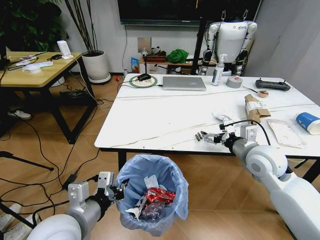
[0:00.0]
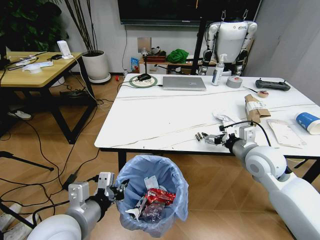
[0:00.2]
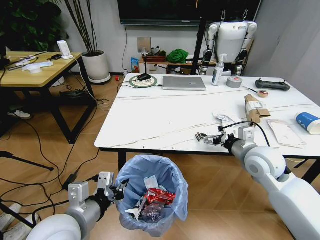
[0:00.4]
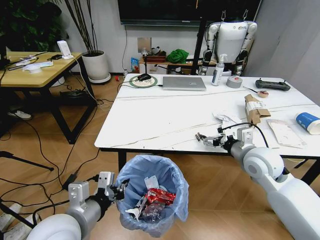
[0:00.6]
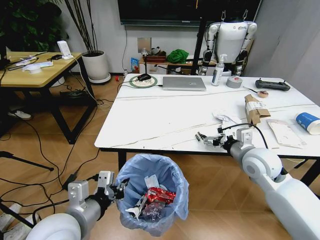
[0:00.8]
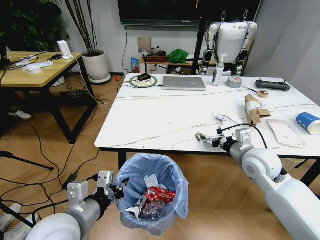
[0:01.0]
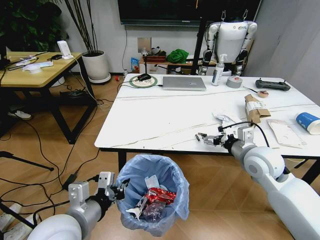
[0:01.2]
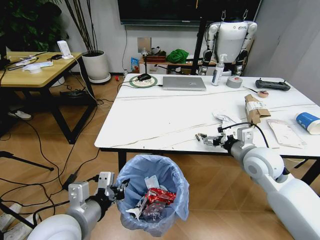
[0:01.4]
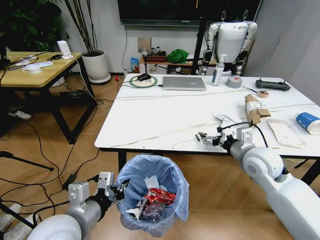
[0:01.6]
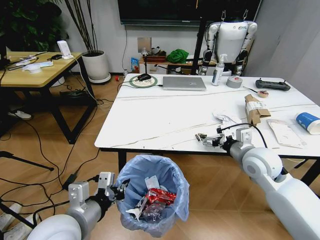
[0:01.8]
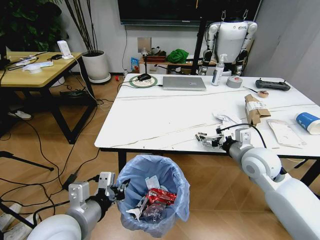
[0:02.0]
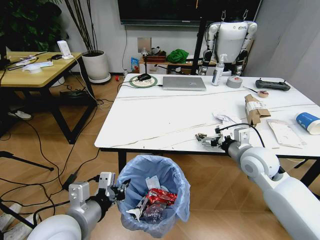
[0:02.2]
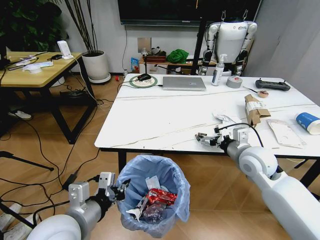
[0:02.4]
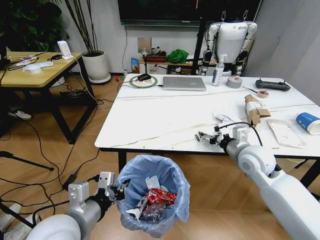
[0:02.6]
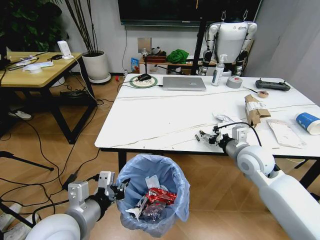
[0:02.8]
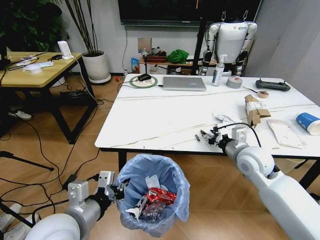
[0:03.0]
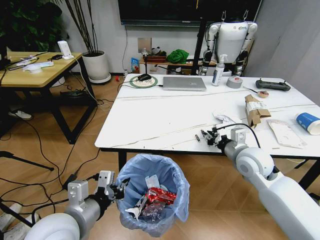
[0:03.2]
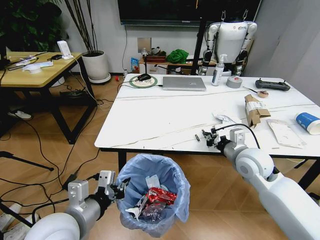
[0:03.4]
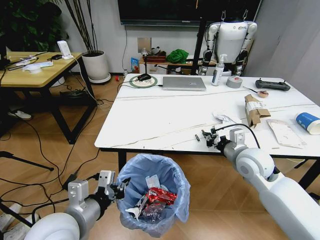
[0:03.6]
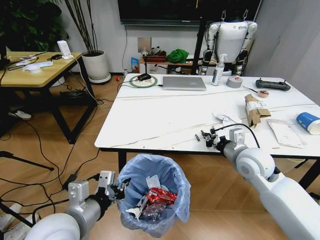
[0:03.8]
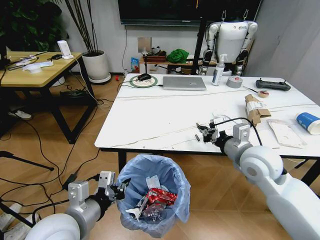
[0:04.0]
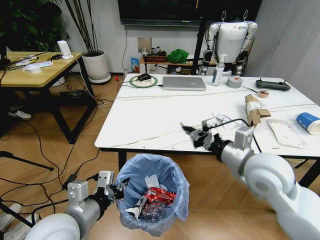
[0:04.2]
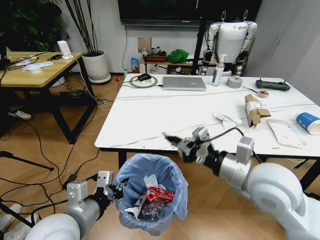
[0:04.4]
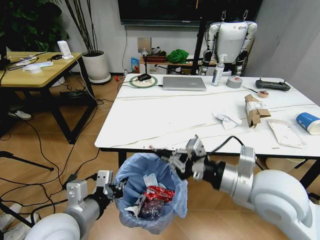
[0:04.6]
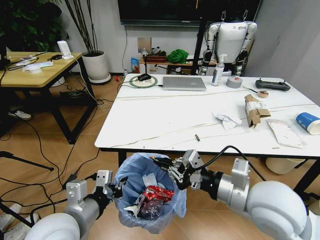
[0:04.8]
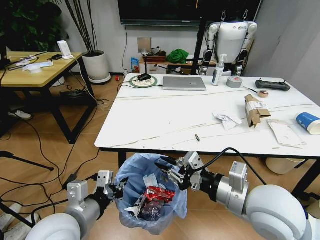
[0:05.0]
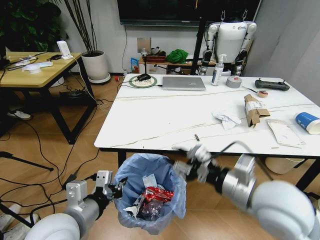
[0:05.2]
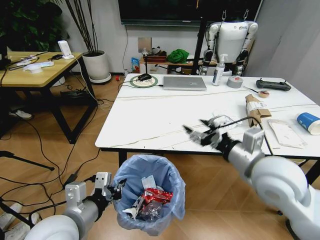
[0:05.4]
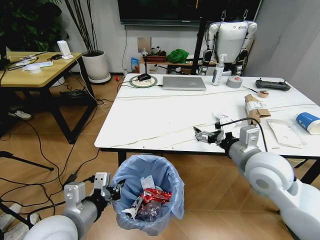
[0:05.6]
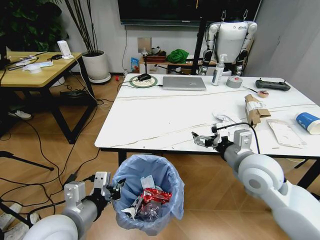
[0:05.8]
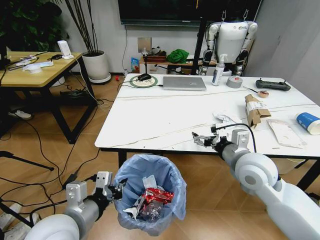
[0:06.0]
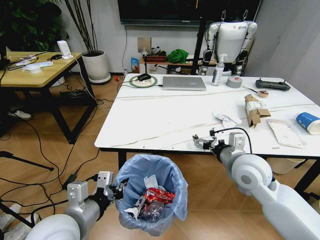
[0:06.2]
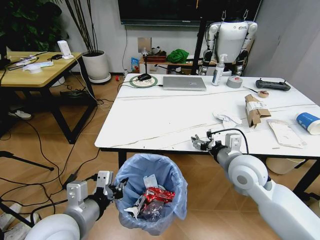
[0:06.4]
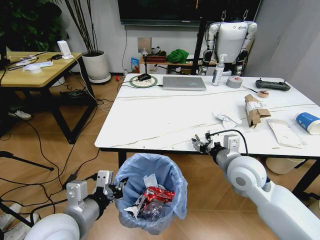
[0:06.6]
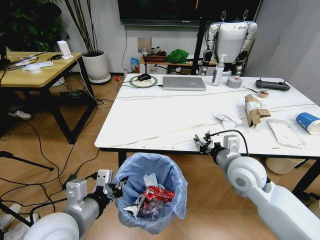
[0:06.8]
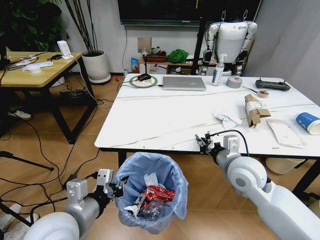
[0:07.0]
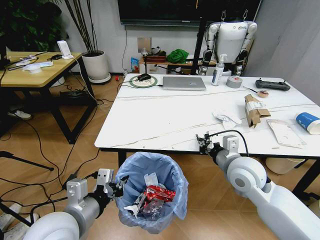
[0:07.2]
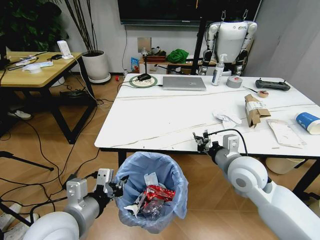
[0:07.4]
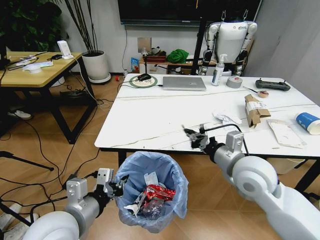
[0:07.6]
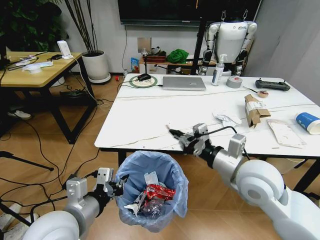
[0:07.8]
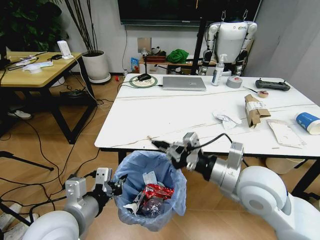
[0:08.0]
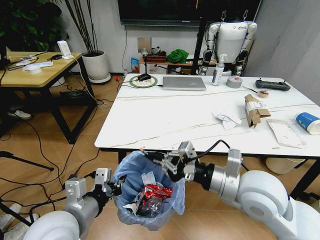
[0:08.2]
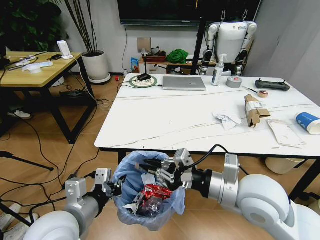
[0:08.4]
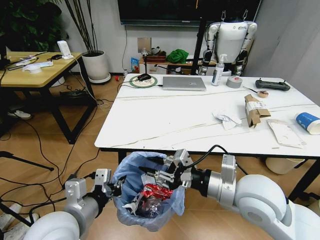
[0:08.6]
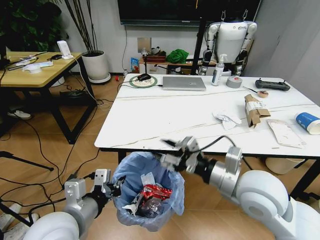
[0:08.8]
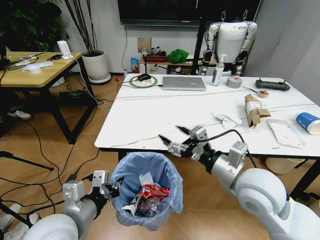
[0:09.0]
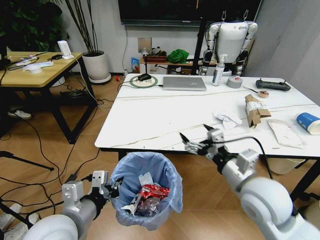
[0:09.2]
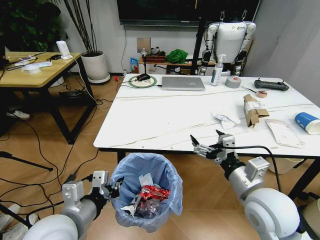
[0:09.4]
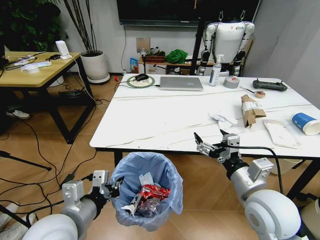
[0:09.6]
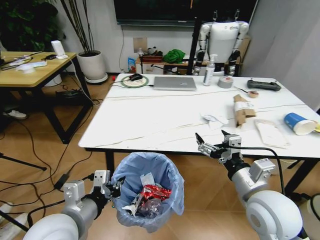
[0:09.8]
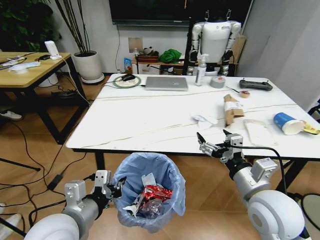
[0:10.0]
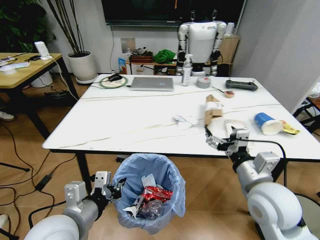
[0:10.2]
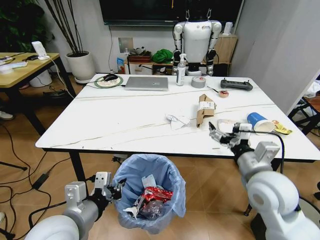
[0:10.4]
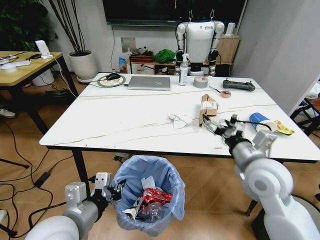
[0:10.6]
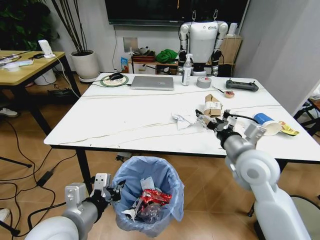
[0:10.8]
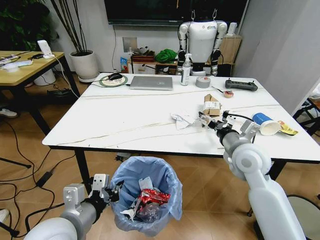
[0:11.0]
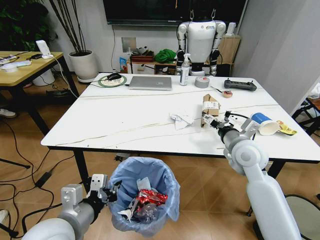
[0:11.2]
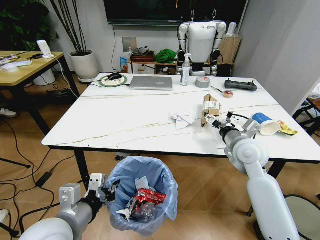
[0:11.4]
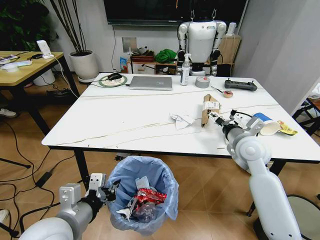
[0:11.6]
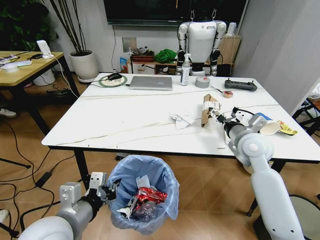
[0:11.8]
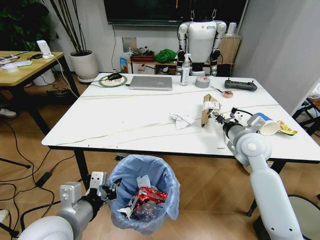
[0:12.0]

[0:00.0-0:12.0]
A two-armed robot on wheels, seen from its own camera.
Task of the whole recording: Pick up the trash bin and place the trash from the table into it.
0:00.0 to 0:01.6: The grippers make only small movements.
0:01.6 to 0:03.0: The right gripper closes its fingers.
0:03.0 to 0:04.4: The right gripper is displaced backward, upward and to the left by about 15 cm, and closes up.
0:04.4 to 0:06.0: The right gripper is displaced forward by approximately 5 cm, and opens its fingers.
0:06.0 to 0:07.6: The right gripper closes.
0:07.6 to 0:09.0: The right gripper opens.
0:10.4 to 0:12.0: The right gripper moves forward, approximately 15 cm.

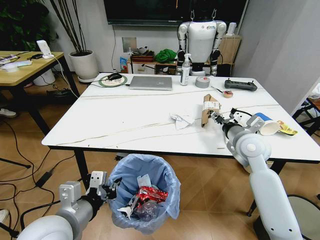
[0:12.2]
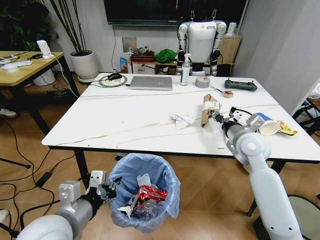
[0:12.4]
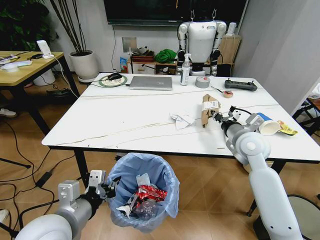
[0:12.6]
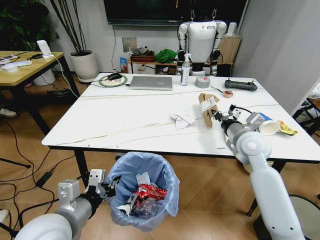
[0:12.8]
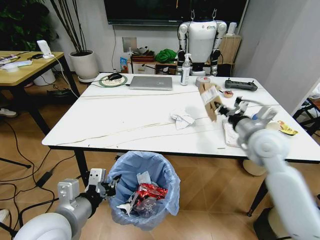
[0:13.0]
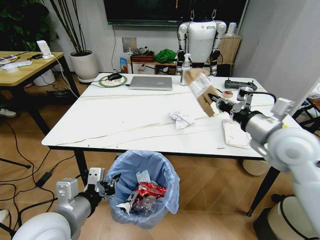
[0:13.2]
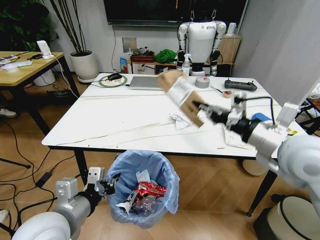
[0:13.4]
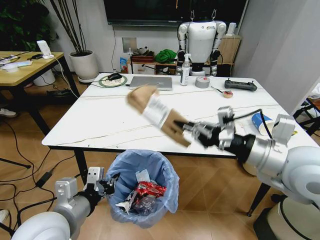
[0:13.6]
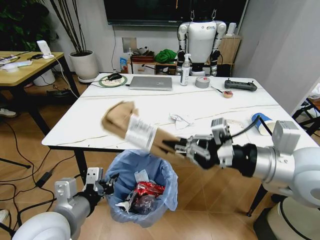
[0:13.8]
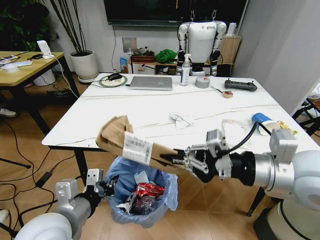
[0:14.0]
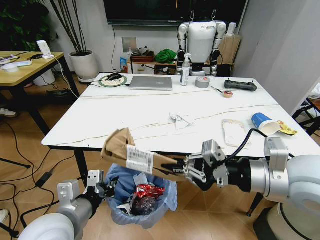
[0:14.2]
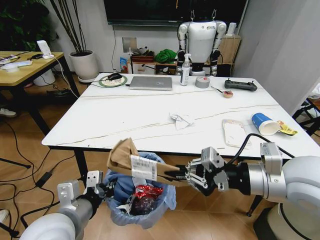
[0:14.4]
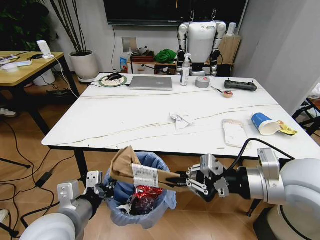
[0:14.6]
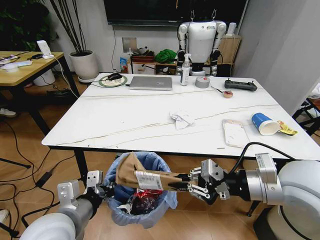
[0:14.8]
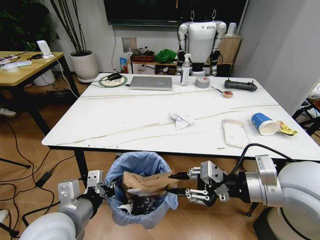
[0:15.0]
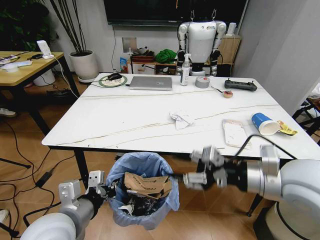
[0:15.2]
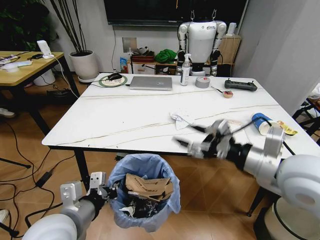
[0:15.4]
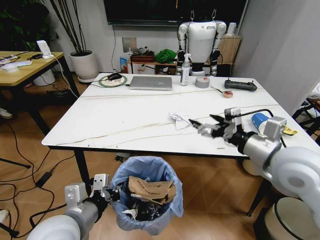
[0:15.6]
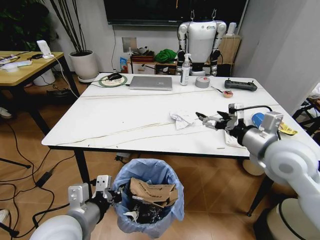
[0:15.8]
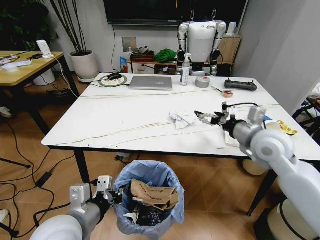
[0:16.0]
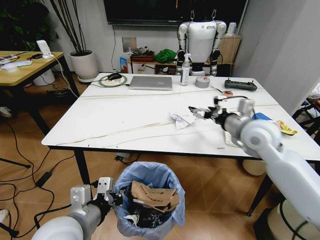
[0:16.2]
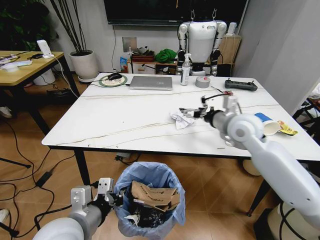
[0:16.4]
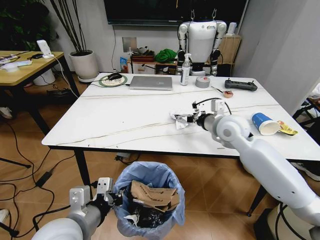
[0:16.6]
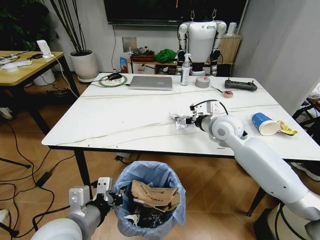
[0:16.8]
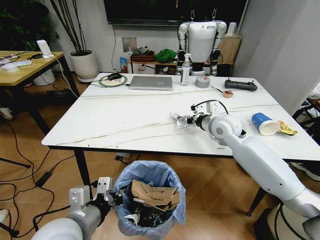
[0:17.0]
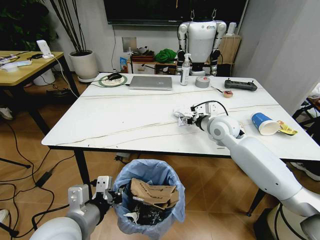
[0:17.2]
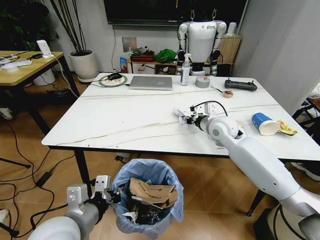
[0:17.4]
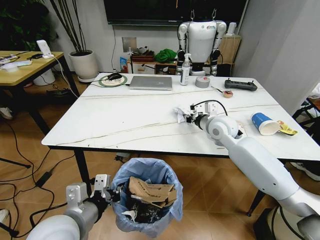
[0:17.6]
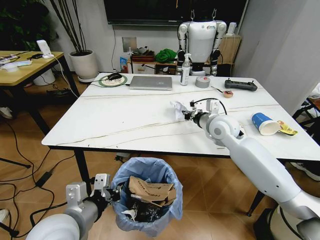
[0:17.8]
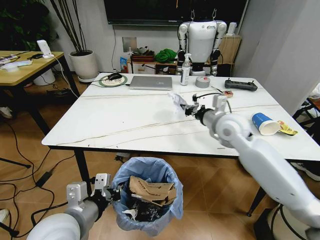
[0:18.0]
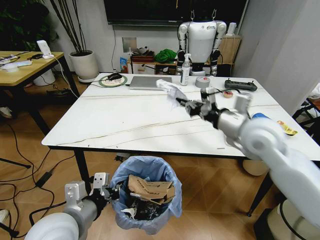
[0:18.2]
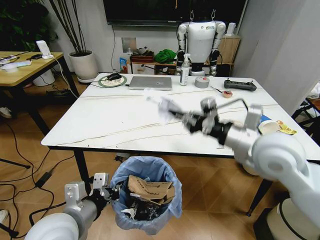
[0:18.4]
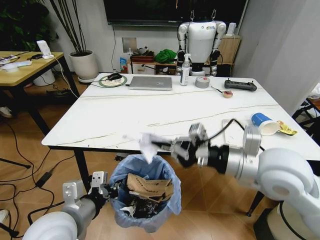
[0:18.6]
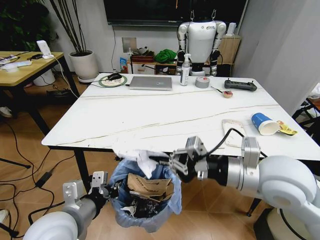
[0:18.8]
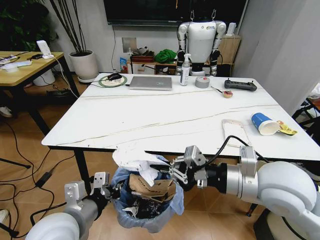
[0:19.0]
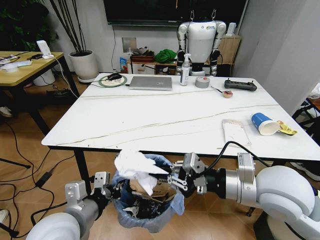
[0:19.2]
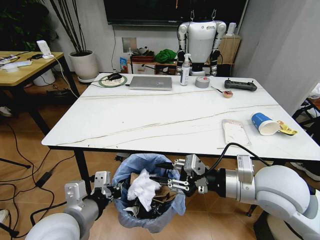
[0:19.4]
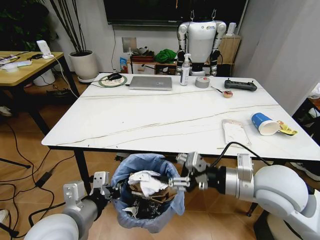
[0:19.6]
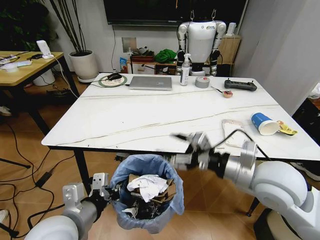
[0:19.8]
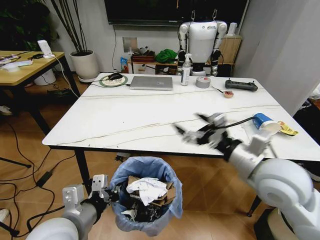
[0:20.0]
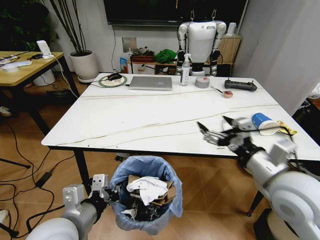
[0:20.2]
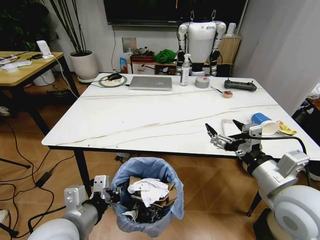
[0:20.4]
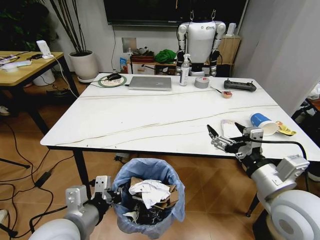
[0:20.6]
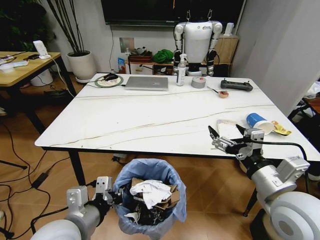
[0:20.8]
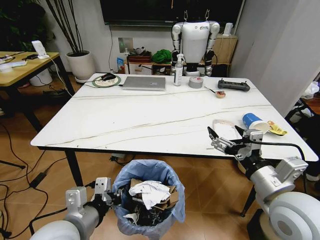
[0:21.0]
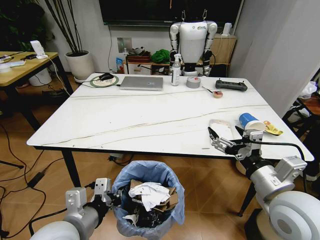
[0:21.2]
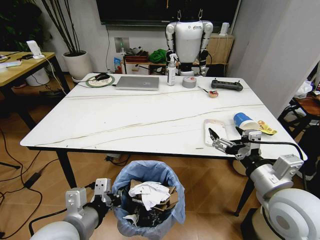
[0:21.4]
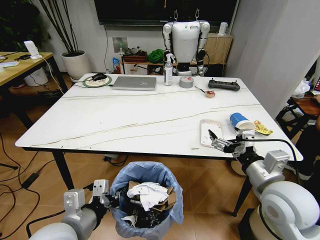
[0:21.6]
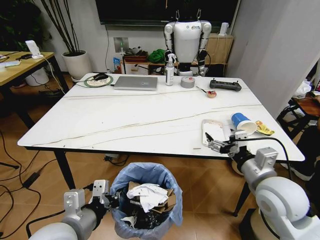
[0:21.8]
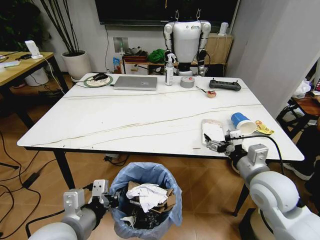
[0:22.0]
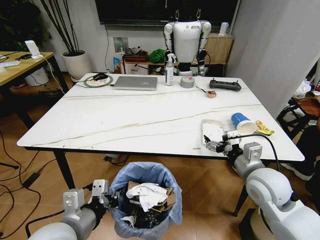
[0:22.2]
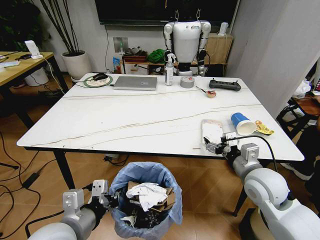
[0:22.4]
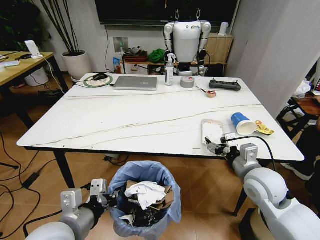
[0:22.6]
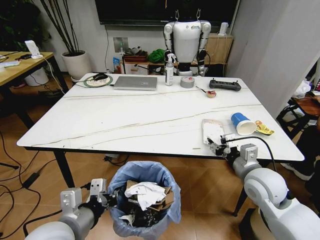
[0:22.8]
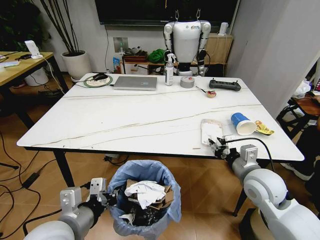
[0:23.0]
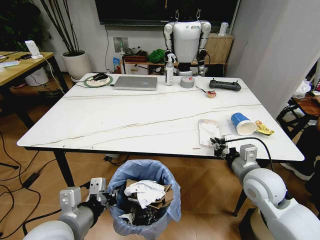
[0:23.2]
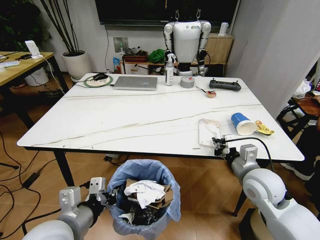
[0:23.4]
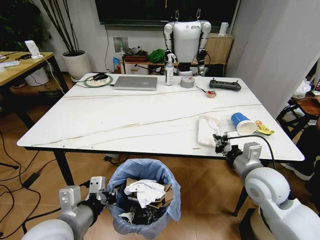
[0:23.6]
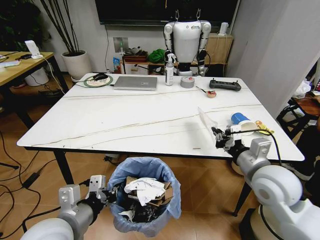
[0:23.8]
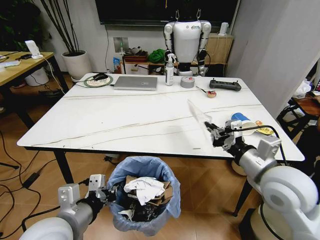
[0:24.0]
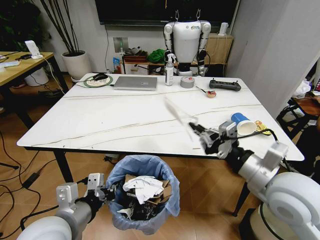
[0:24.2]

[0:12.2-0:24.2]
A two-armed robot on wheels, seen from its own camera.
Task of the whole recording: Pick up the trash bin and place the trash from the table into it.
0:12.2 to 0:13.8: The right gripper shifts some 20 cm backward and upward, and closes up.
0:13.8 to 0:15.2: The right gripper opens its fingers.
0:15.2 to 0:16.6: The right gripper is displaced forward by some 20 cm, and opens up.
0:16.6 to 0:18.2: The right gripper shifts roughly 10 cm backward and upward, and closes.
0:18.2 to 0:19.8: The right gripper is displaced backward by some 10 cm, and opens.
0:19.8 to 0:21.2: The right gripper travels backward by approximately 5 cm.
0:21.2 to 0:22.6: The right gripper travels forward and downward by roughly 10 cm.
0:22.6 to 0:24.2: The right gripper goes some 10 cm upward and backward, and closes up.
